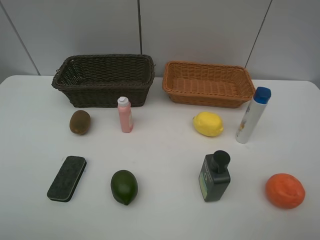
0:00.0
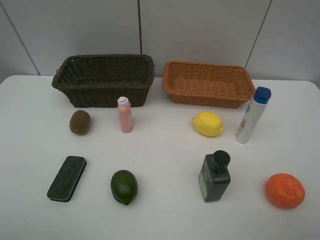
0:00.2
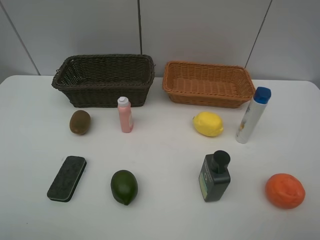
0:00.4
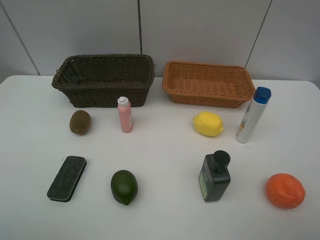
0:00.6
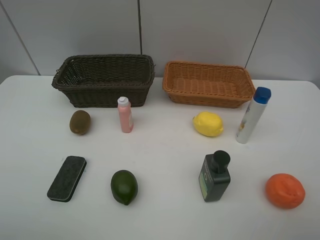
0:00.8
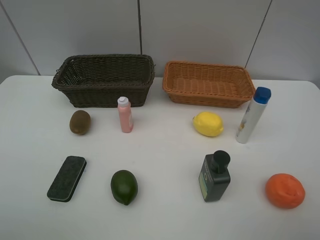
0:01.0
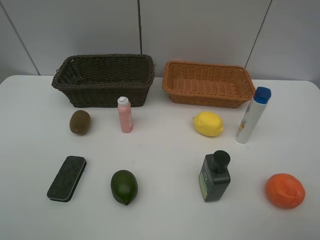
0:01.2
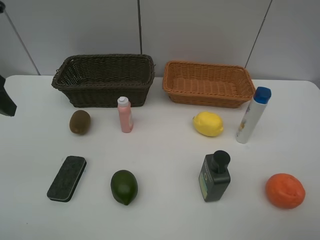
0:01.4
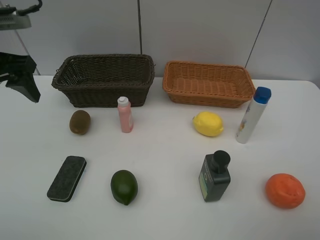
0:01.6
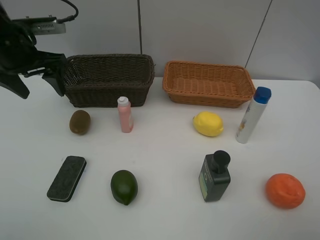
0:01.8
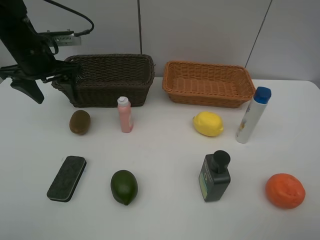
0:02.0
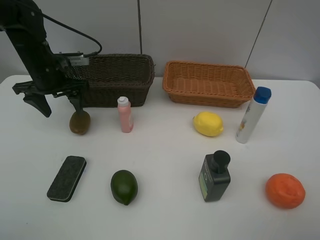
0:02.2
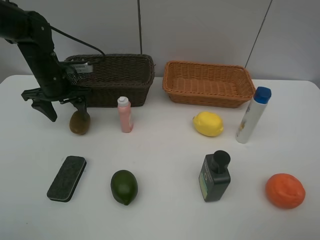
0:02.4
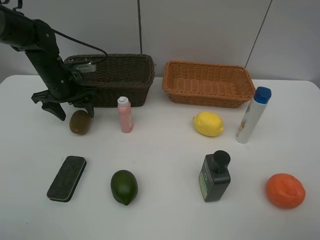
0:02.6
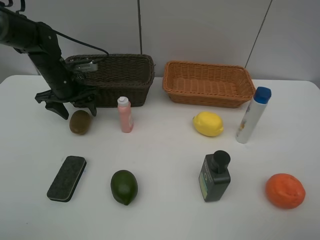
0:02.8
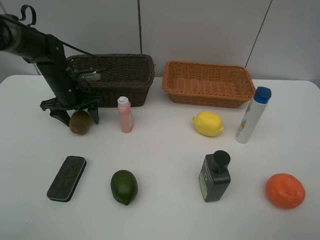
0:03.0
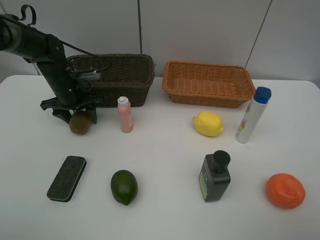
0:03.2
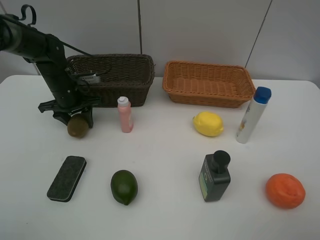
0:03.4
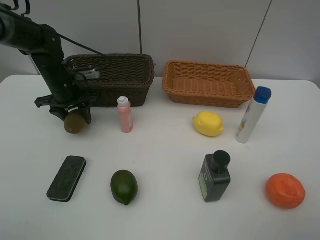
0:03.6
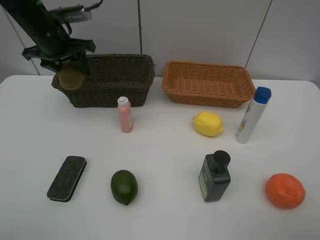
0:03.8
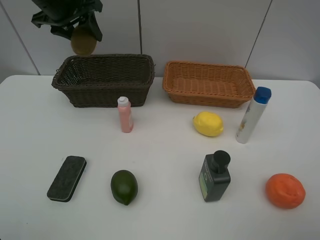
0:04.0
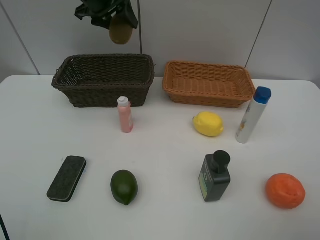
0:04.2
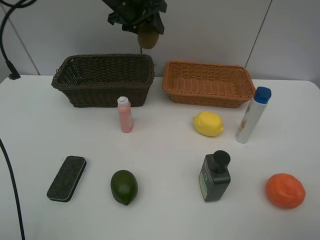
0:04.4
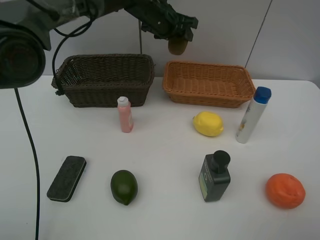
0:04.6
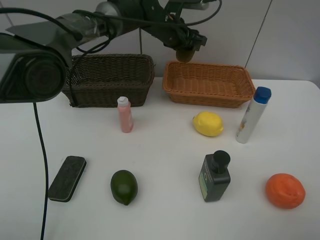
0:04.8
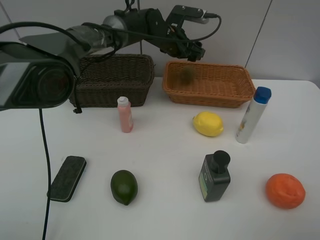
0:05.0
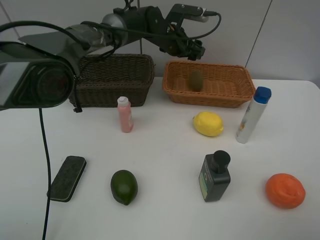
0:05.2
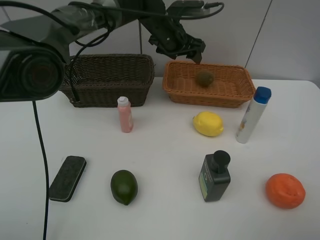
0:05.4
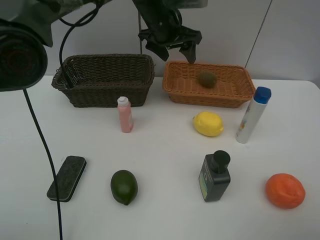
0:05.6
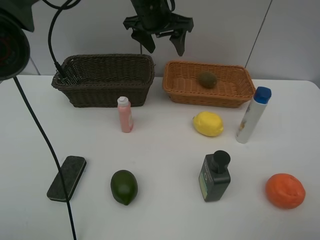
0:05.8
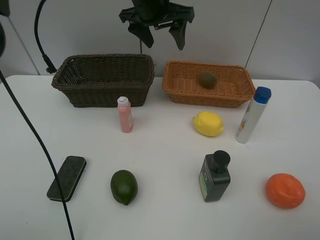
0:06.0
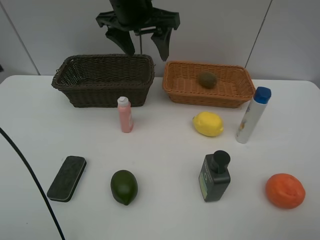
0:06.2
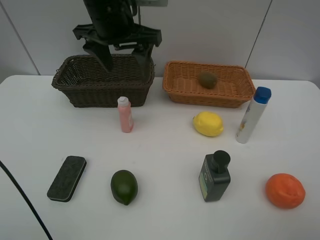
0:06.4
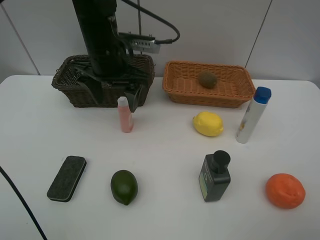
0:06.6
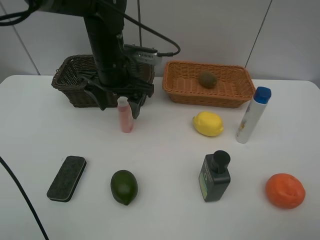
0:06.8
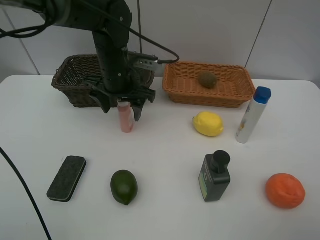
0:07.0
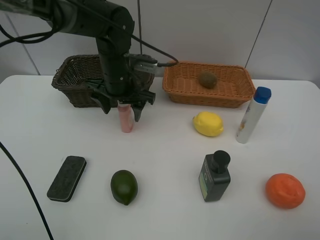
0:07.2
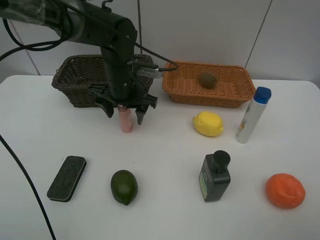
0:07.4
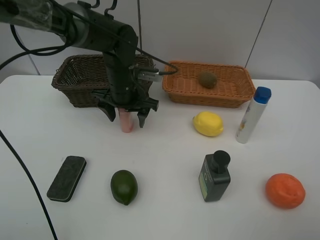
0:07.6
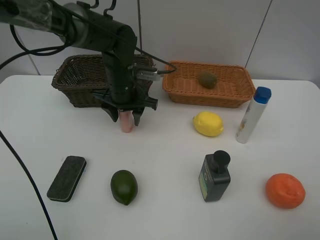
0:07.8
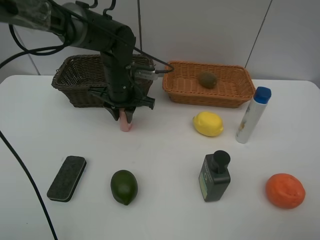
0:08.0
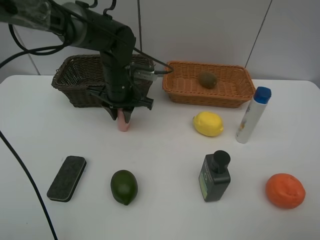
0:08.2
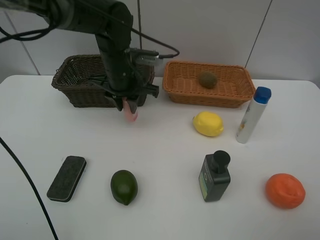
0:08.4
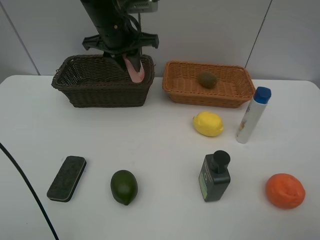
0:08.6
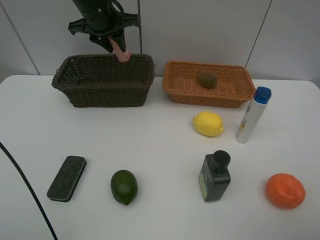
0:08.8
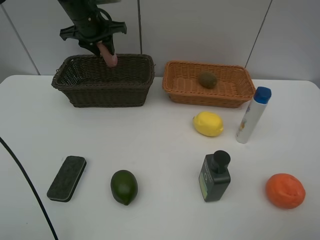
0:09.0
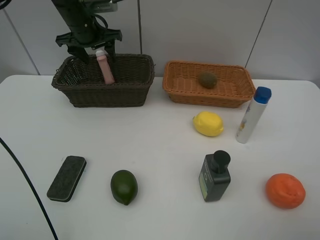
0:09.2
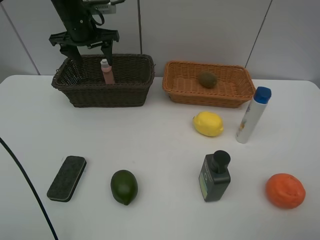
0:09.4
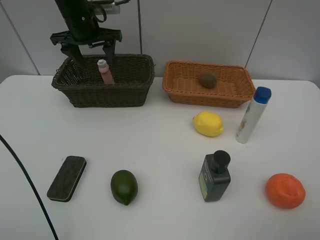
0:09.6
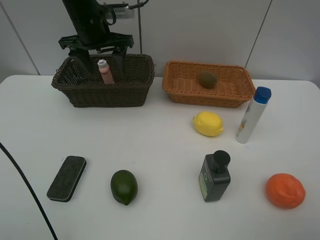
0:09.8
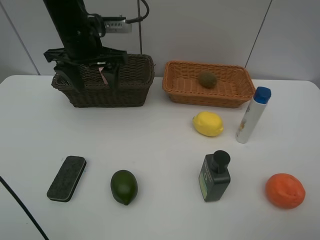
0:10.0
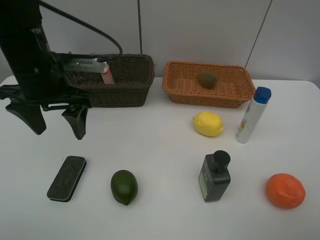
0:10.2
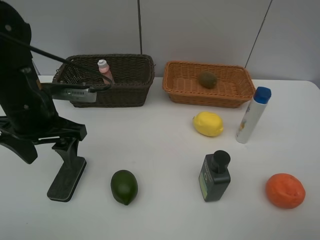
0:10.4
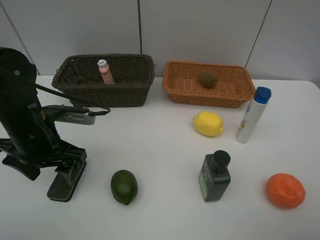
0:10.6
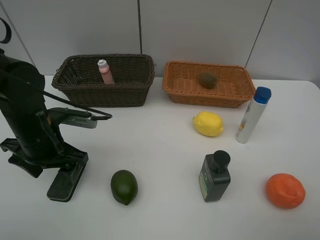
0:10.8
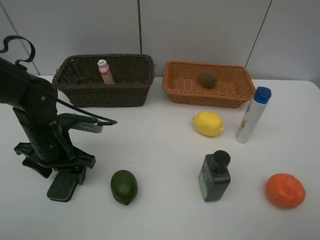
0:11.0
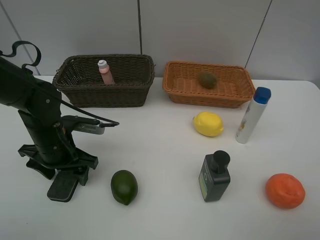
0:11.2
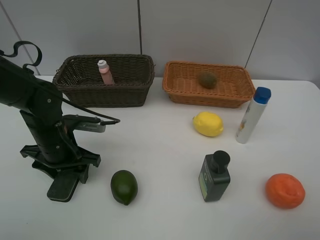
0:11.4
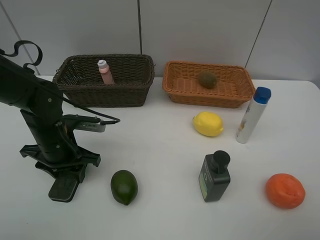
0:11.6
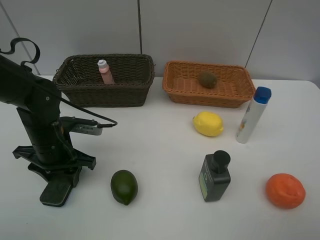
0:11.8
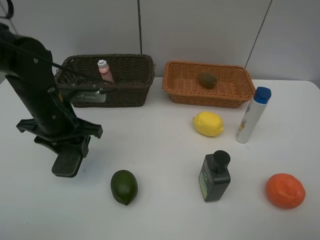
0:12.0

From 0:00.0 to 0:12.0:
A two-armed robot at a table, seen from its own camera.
Task of the whole recording: Place multiple objects separately in different baskets.
Step, from 0:00.0 to 0:03.6: Pick up kiwi with left gripper.
Step, from 0:03.8 to 0:05.2: Place the kiwi in the light basket with left gripper.
Step, from 0:05.4 to 0:08.4: Pick up the laundry detergent with left gripper.
Step, from 0:08.6 to 0:09.2: Place the laundry detergent in the dark basket with left gripper.
Step, from 0:09.4 to 0:11.8: Pick up blackboard eraser with left gripper.
From 0:00.0 to 0:01.6: The left gripper is displaced forward by some 30 cm.
From 0:01.6 to 0:03.0: The left gripper moves downward and forward, approximately 20 cm.
From 0:03.0 to 0:04.4: The left gripper travels upward, to the right and forward by approximately 25 cm, and closes up.
From 0:04.4 to 0:06.0: The left gripper travels backward and to the right by approximately 10 cm, reaches approximately 10 cm downward, then returns, and opens up.
From 0:06.0 to 0:07.6: The left gripper is displaced downward by approximately 15 cm.
From 0:07.6 to 0:09.0: The left gripper goes some 20 cm forward, upward and to the left, and closes.
From 0:09.0 to 0:10.4: The left gripper moves backward, approximately 25 cm, and opens its fingers.
From 0:10.4 to 0:12.0: The left gripper reaches about 10 cm downward, then returns, and closes its fingers.

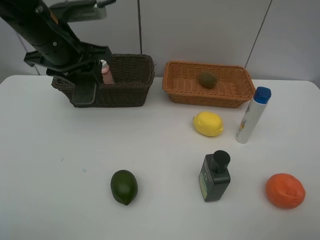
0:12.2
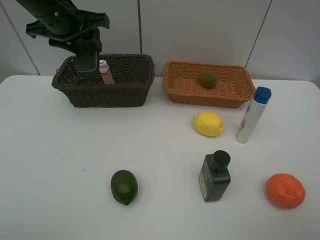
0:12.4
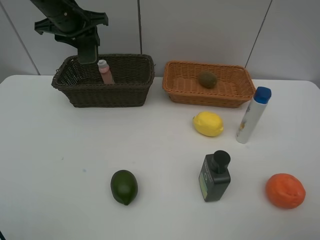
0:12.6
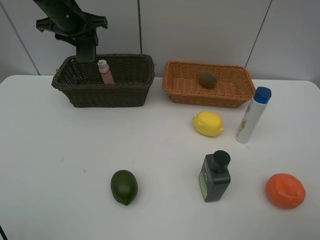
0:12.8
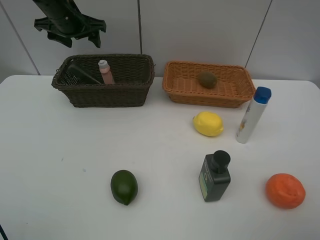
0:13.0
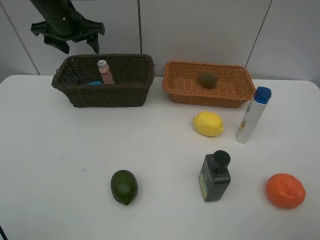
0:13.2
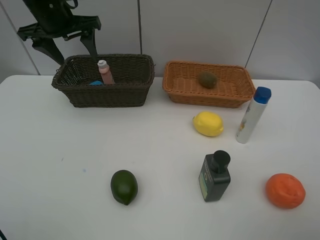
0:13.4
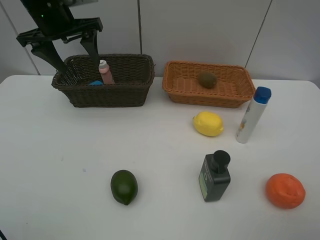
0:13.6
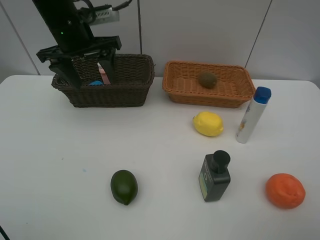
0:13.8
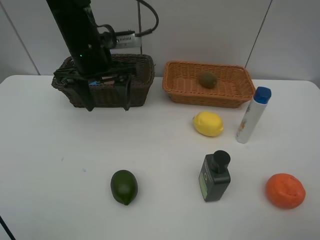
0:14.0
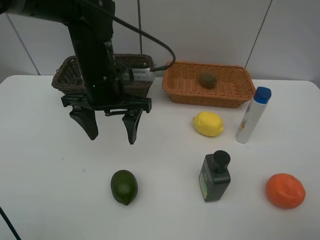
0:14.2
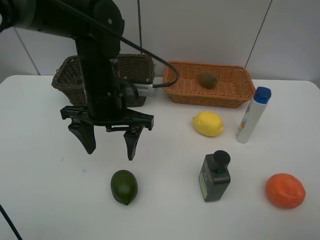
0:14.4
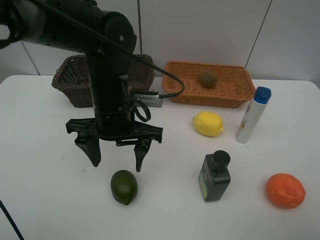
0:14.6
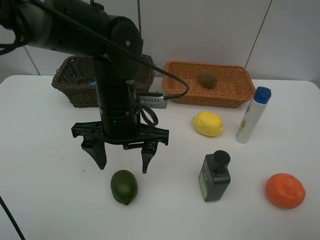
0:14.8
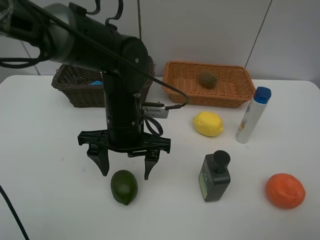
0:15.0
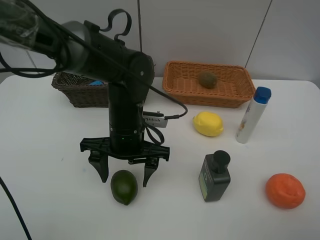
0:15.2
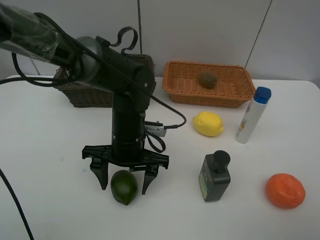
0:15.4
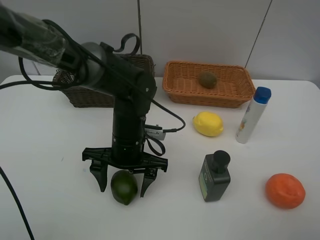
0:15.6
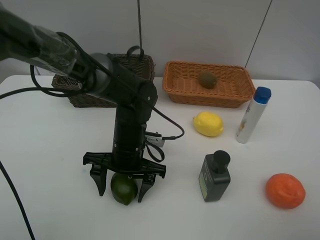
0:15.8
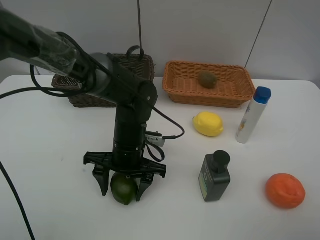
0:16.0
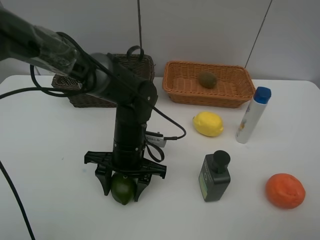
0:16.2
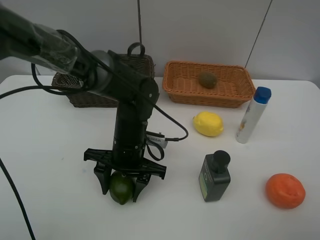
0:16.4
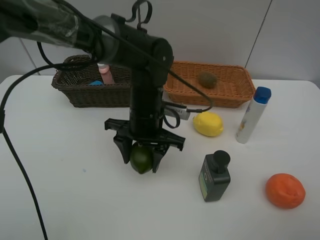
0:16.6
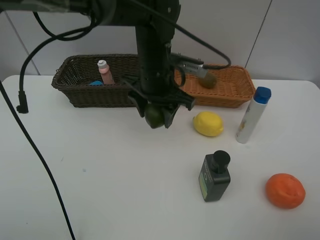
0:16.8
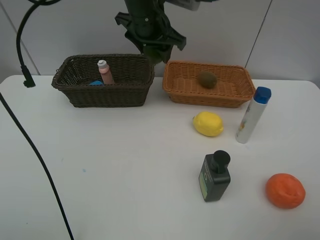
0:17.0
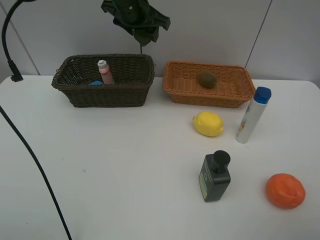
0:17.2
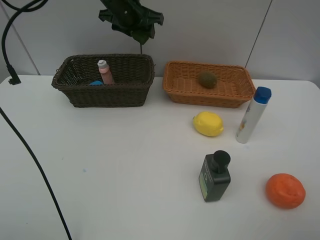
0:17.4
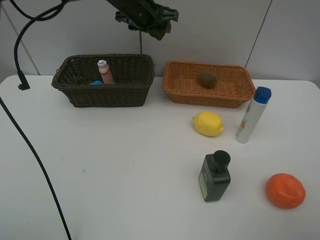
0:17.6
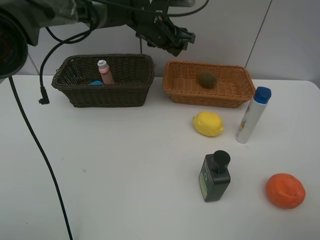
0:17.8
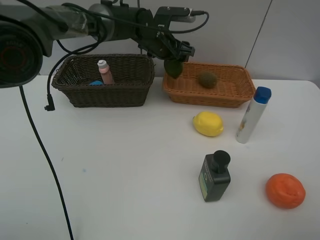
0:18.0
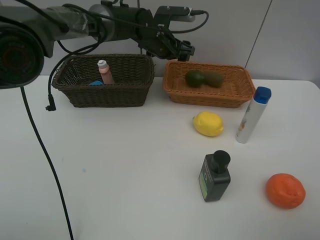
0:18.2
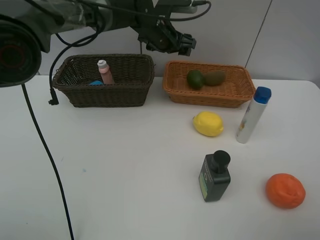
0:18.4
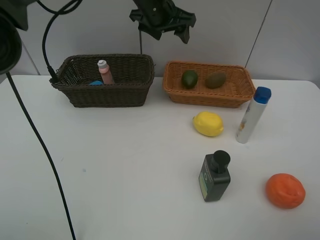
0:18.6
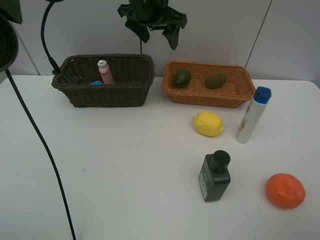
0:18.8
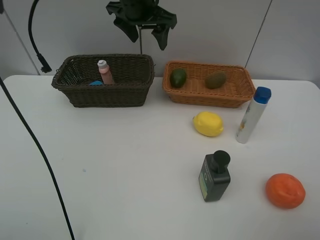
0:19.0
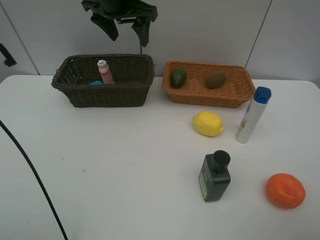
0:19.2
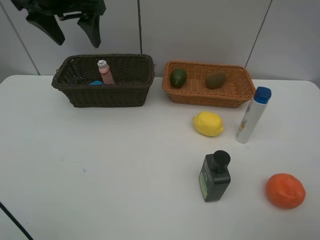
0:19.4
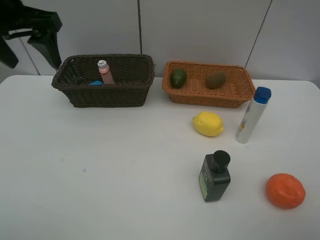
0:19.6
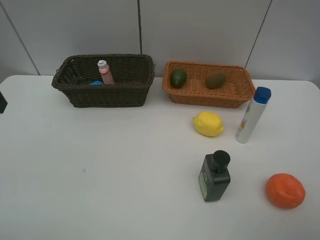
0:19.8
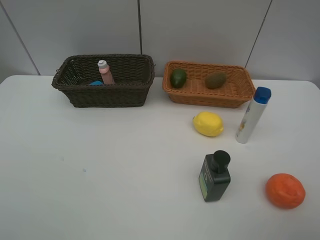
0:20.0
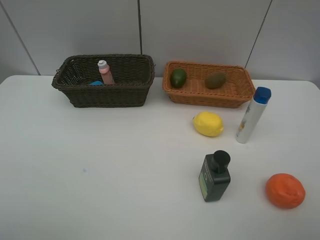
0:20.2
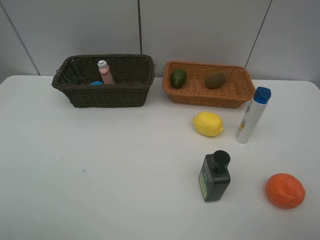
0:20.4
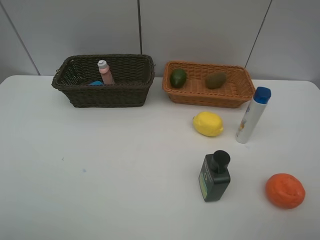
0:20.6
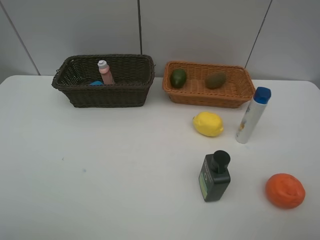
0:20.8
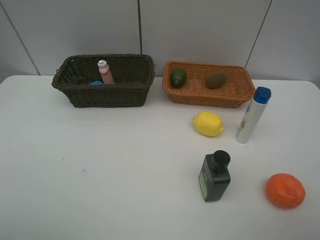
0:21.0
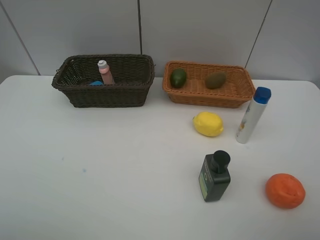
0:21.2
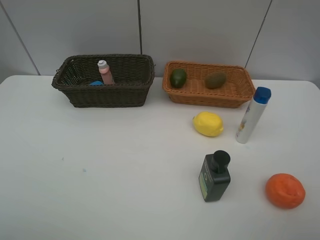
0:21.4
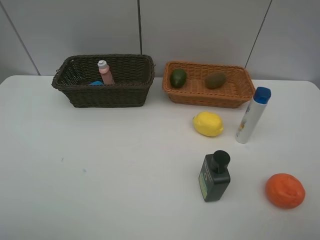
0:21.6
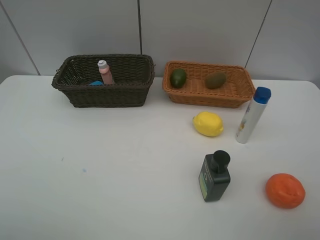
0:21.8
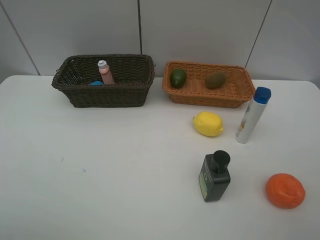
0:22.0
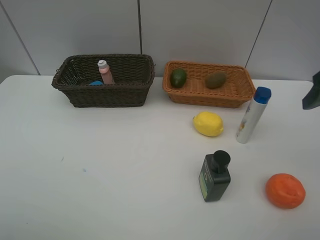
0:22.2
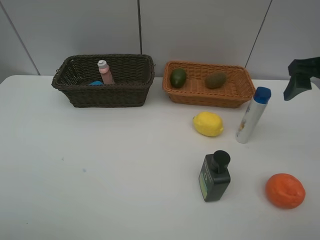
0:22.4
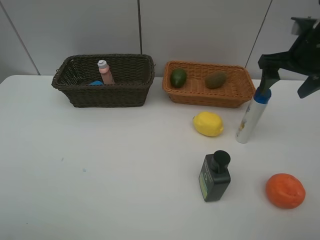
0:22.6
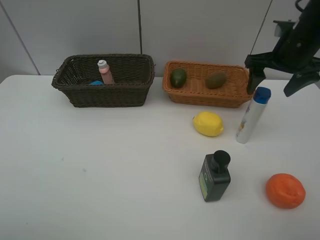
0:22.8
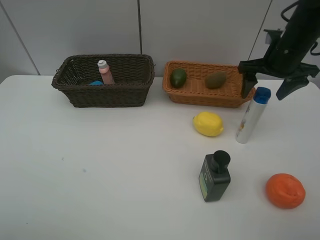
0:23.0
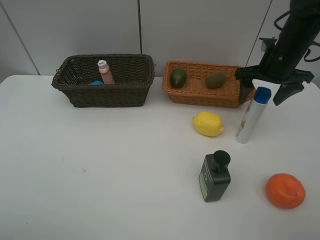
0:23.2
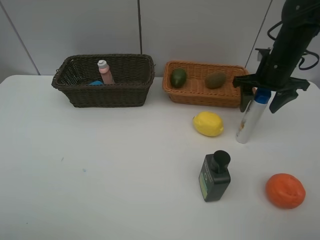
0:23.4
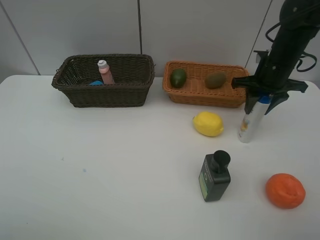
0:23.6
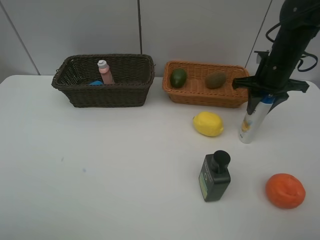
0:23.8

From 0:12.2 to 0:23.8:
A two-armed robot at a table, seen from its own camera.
Task of the whole recording: Place multiple objects separately in different baskets.
Step, from 0:12.2 to 0:13.0: Place the blackboard eraser in the dark basket with left gripper.
Step, from 0:13.2 to 0:16.4: Pick up the lime with left gripper.
Step, from 0:16.6 to 0:18.2: Place the lime in the light basket with left gripper.
From 0:12.2 to 0:13.6: The left gripper is displaced forward by roughly 5 cm, and opens up.
From 0:13.6 to 0:15.0: The left gripper goes approximately 25 cm to the right, backward and downward.
From 0:15.0 to 0:16.6: The left gripper ends up about 5 cm from where it was, and closes its fingers.
From 0:16.6 to 0:18.0: The left gripper shifts about 20 cm forward.
From 0:18.0 to 0:19.4: The left gripper shifts about 25 cm to the left, upward and backward.
From 0:19.4 to 0:21.0: The left gripper heads backward, covering some 35 cm.
From 0:21.0 to 0:22.4: The right gripper travels forward by approximately 25 cm.
From 0:22.4 to 0:23.8: The right gripper is displaced forward and downward by some 15 cm, and closes.
